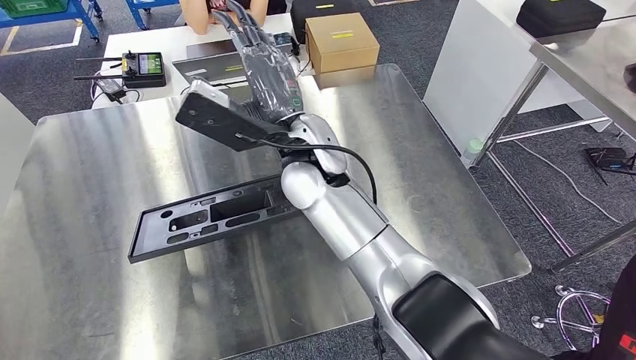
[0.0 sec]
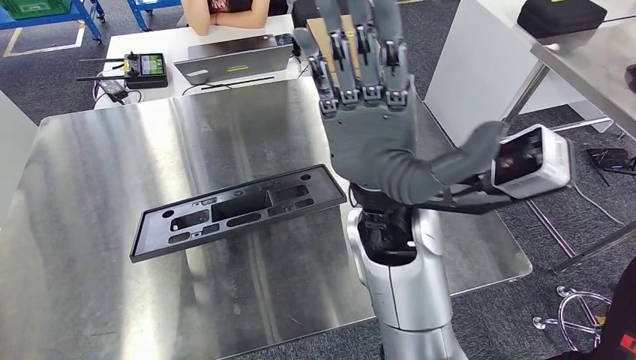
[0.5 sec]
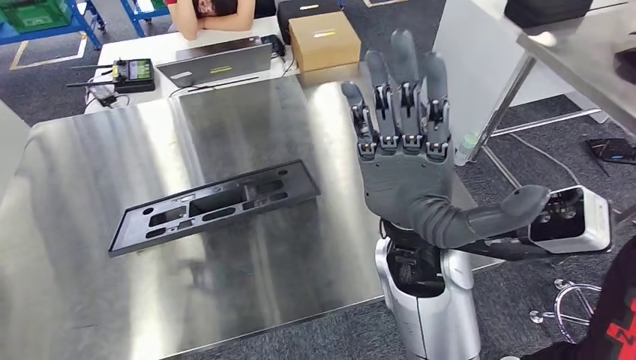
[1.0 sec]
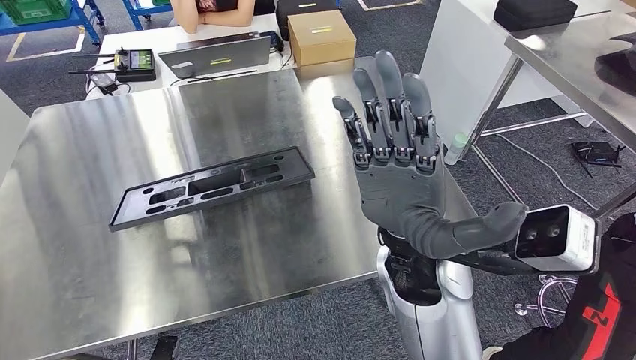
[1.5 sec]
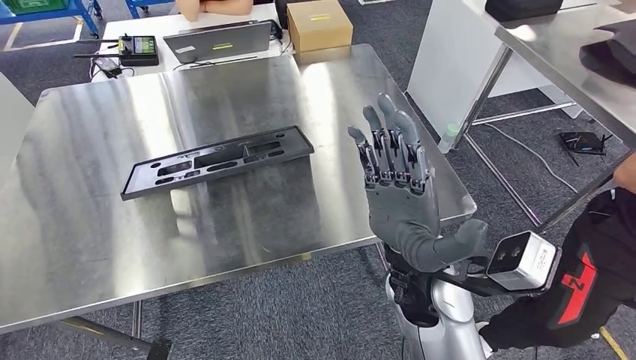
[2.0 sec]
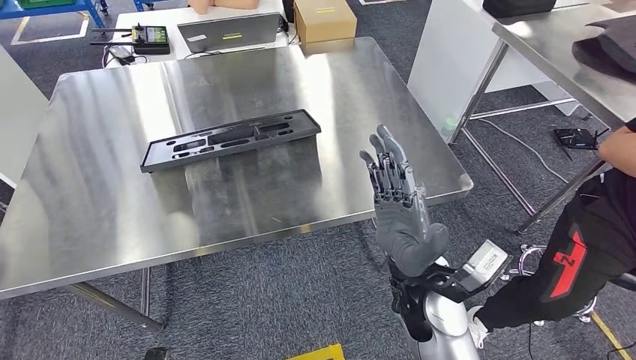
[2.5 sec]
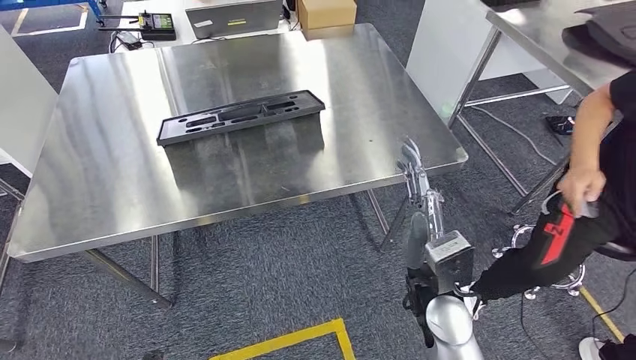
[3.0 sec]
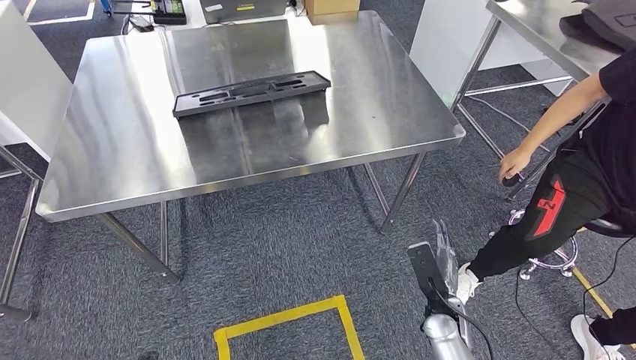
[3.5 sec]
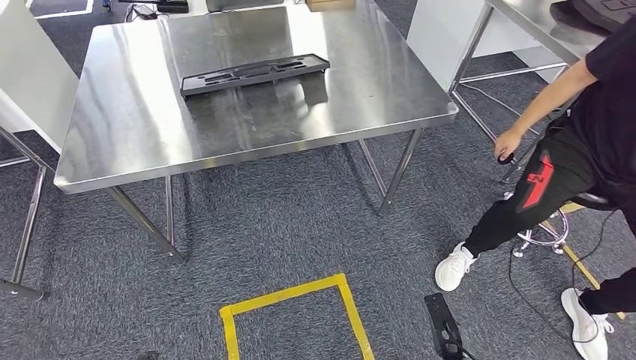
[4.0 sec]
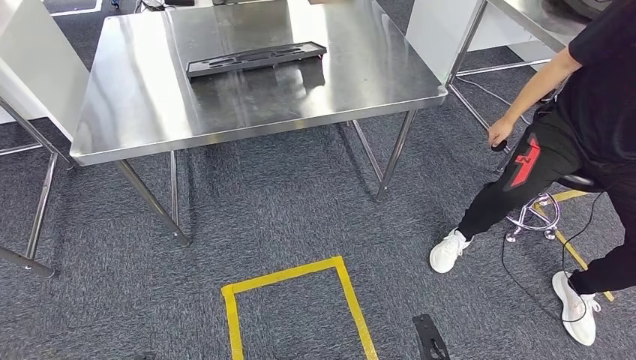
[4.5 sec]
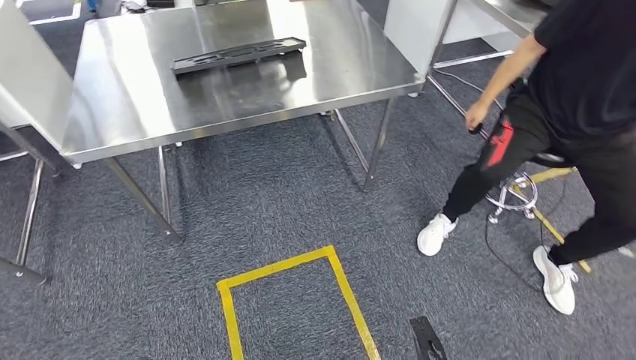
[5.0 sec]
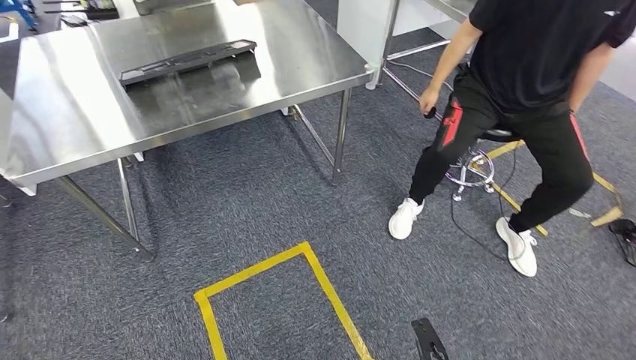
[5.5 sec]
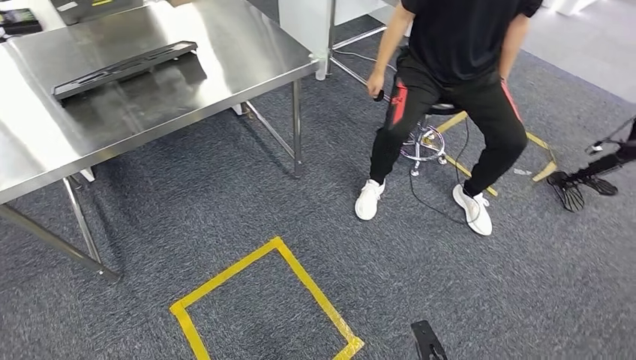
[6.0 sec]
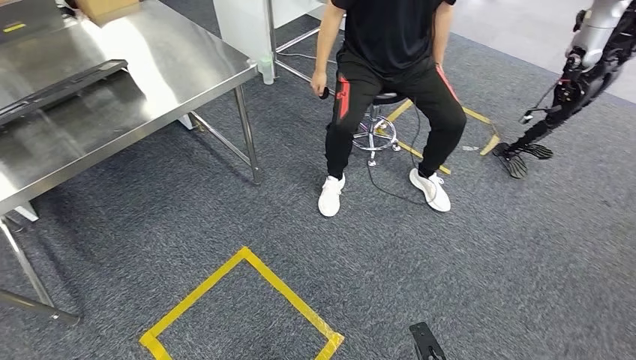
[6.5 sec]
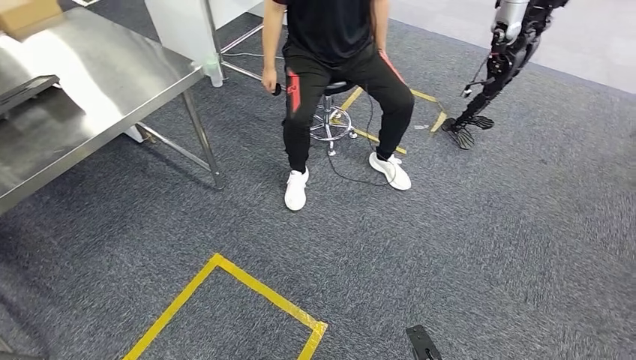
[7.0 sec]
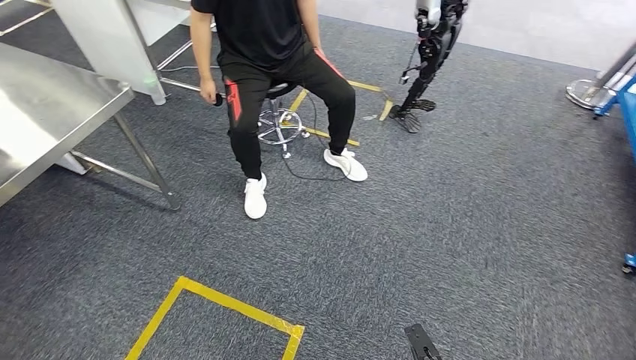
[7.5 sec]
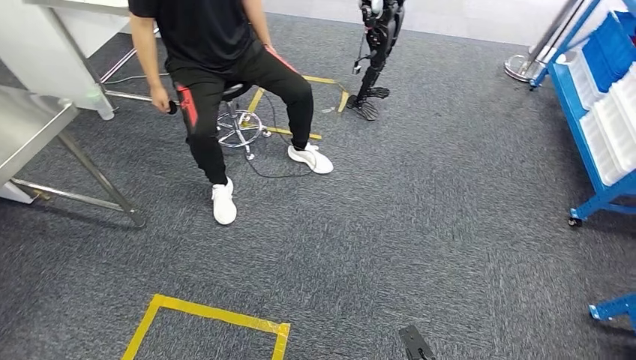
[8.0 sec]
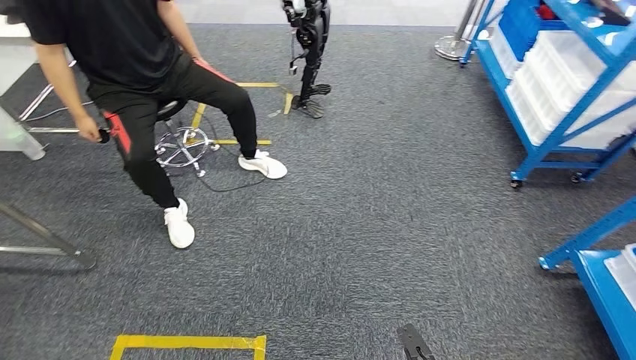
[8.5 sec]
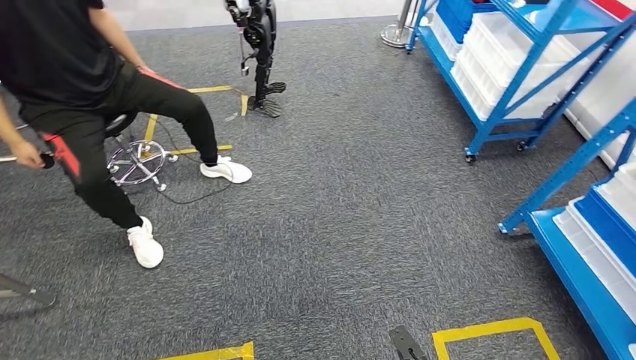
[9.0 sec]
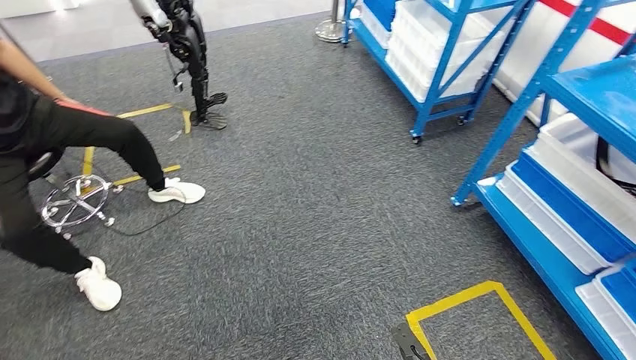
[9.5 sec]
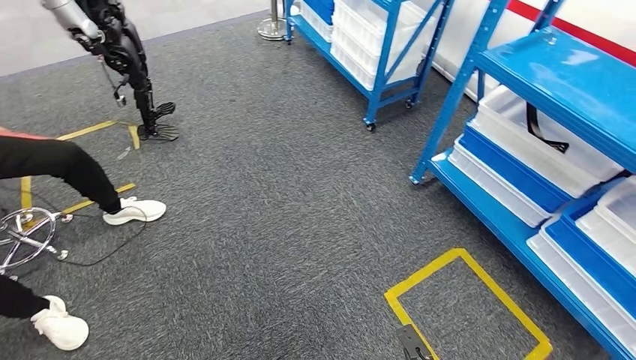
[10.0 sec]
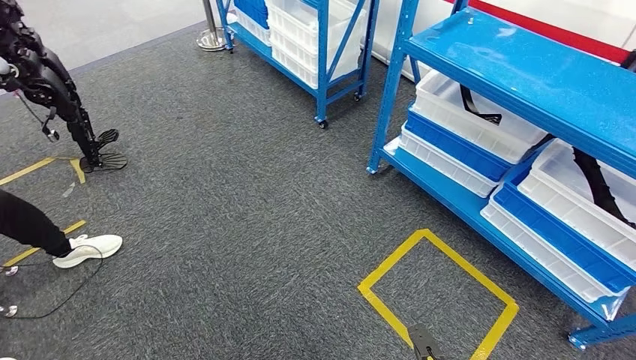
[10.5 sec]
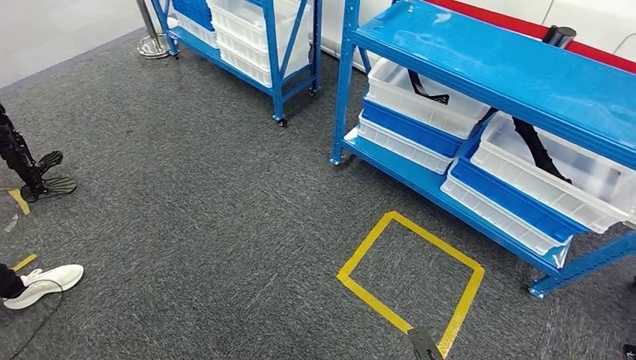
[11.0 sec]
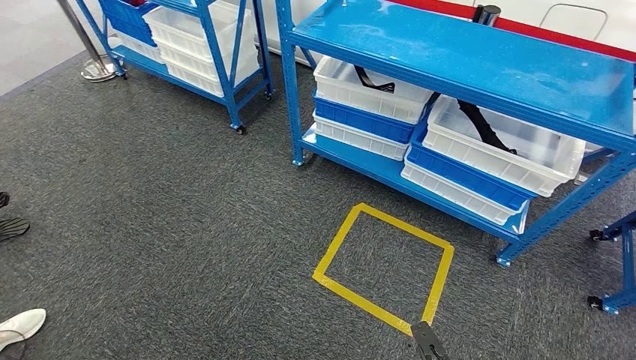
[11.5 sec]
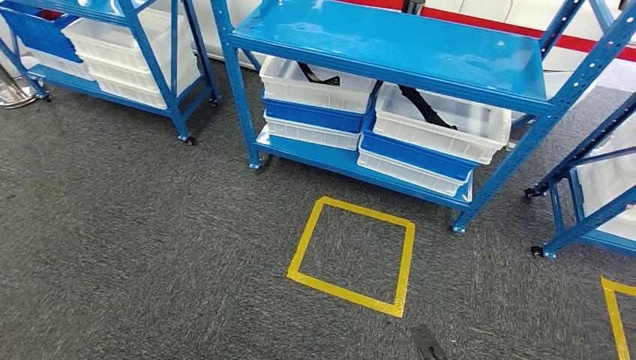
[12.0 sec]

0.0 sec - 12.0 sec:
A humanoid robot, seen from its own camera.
Step, 0.0 sec - 6.5 sec: Insert the large material into the corresponding slot on the workbench.

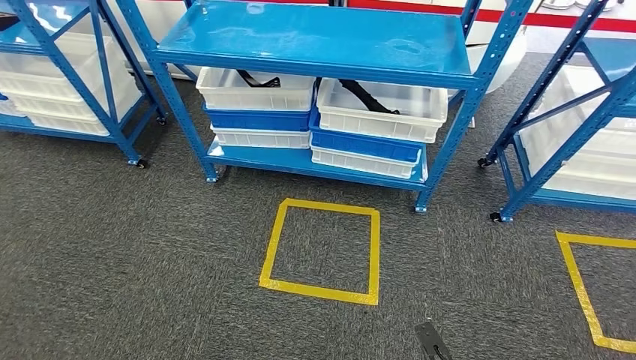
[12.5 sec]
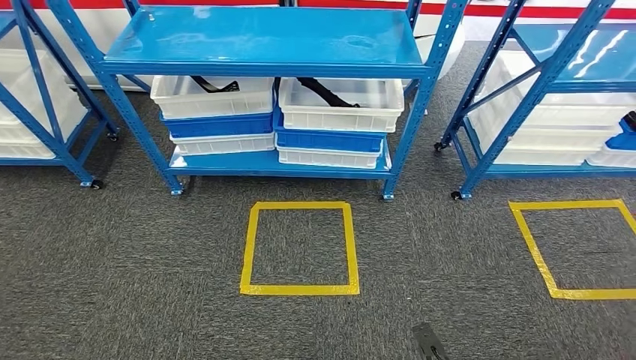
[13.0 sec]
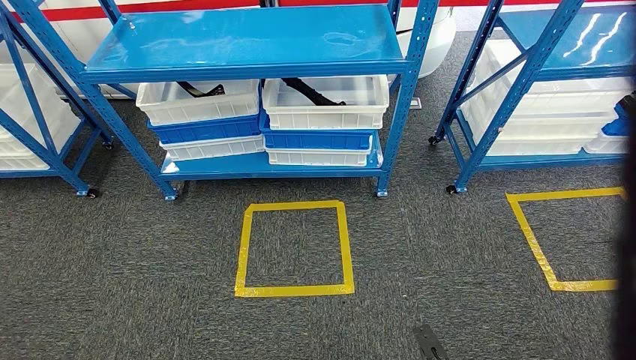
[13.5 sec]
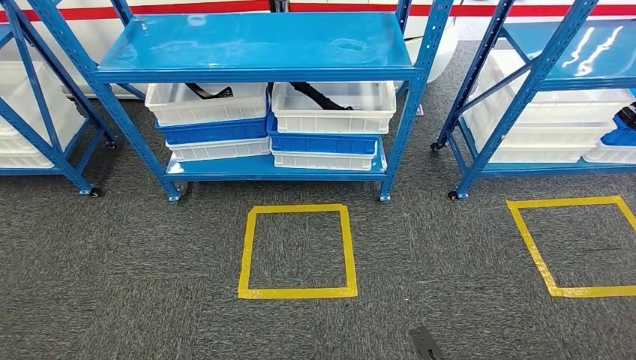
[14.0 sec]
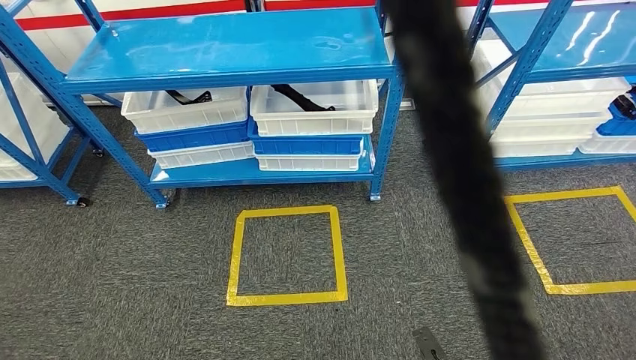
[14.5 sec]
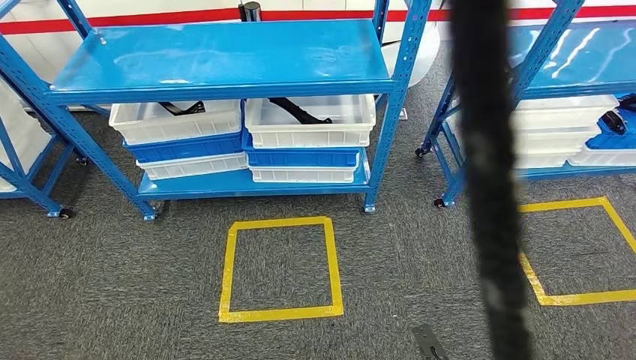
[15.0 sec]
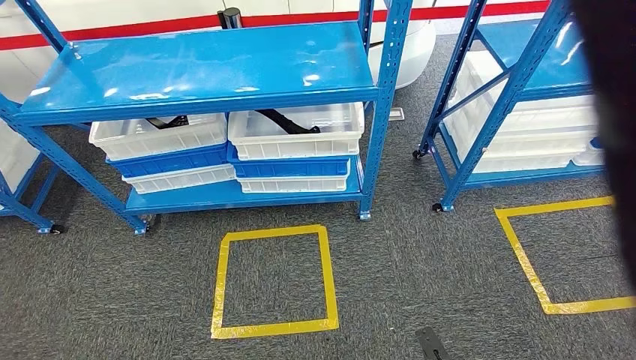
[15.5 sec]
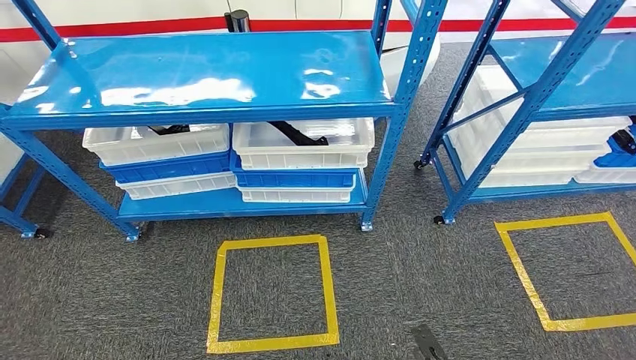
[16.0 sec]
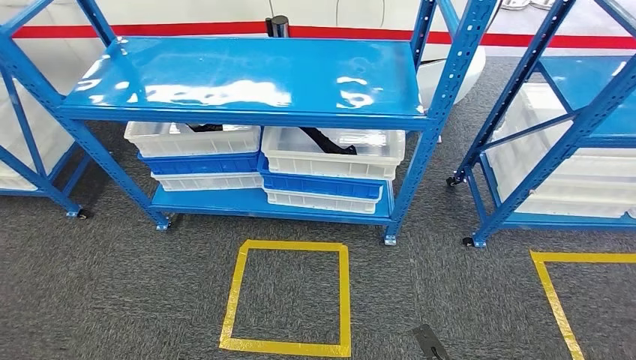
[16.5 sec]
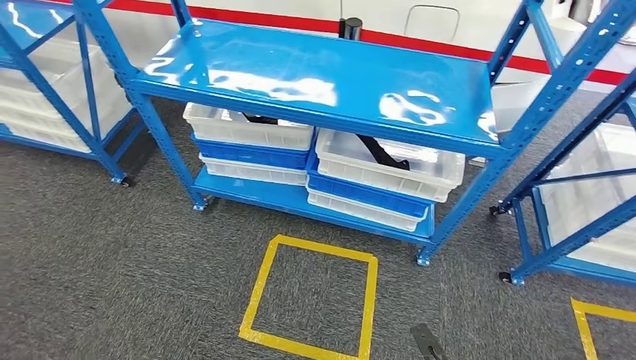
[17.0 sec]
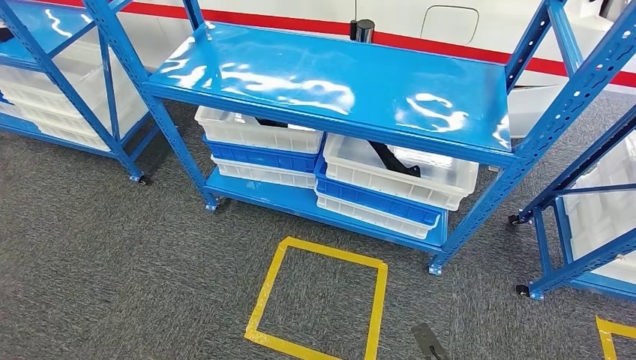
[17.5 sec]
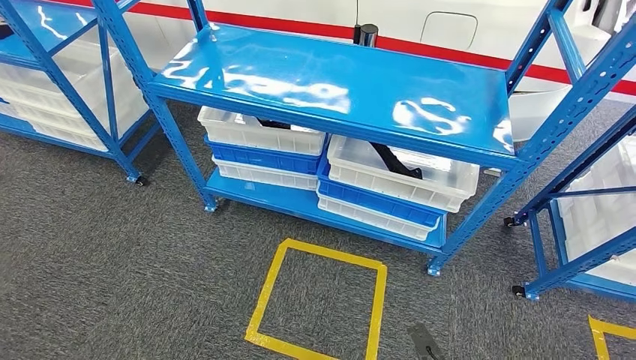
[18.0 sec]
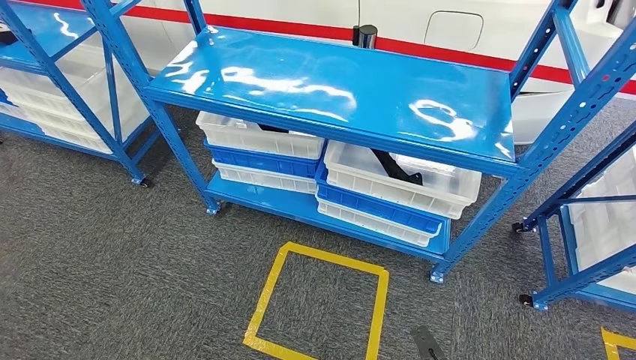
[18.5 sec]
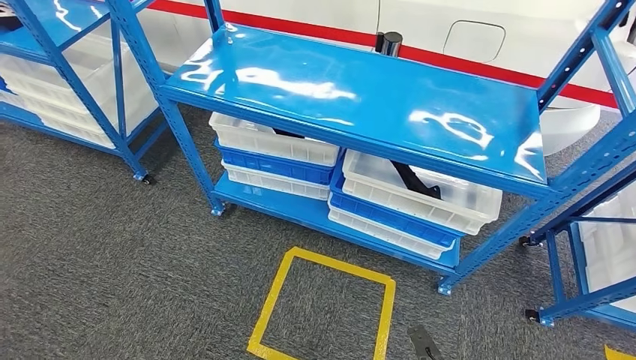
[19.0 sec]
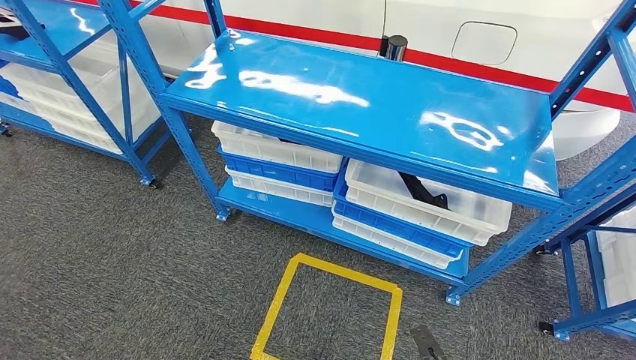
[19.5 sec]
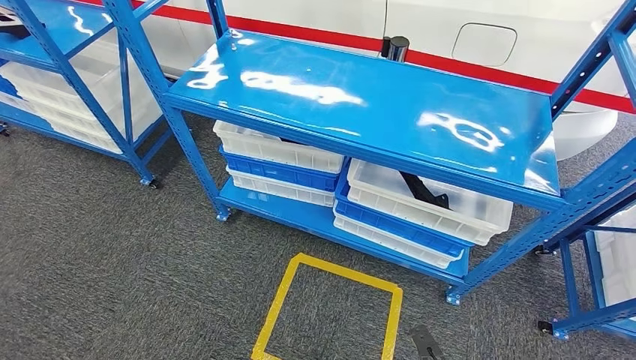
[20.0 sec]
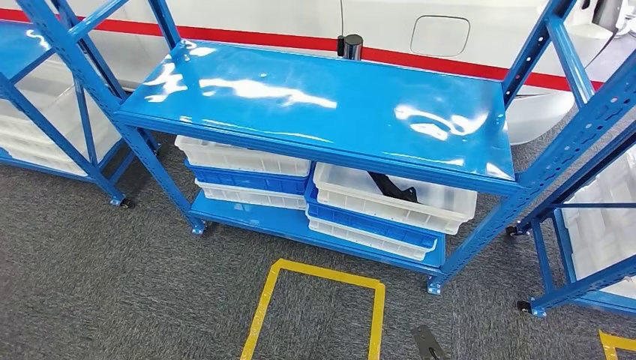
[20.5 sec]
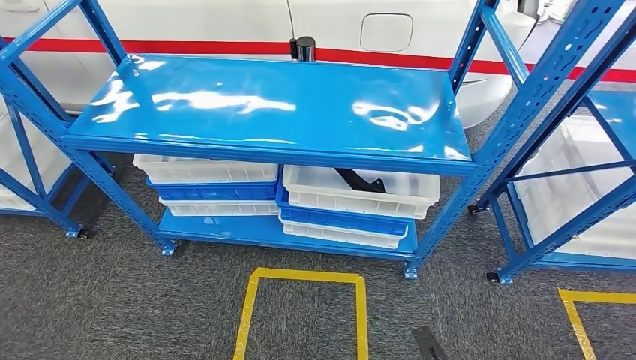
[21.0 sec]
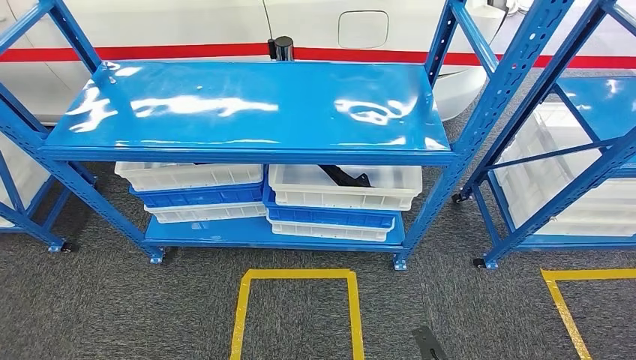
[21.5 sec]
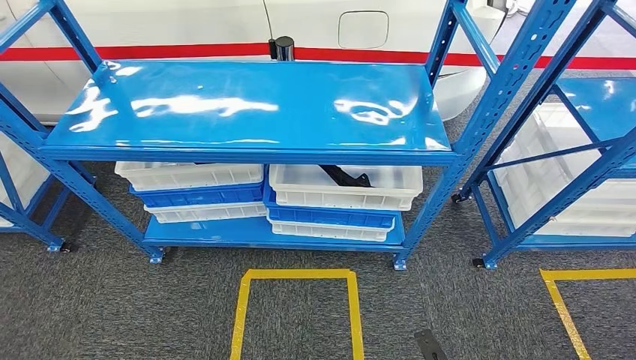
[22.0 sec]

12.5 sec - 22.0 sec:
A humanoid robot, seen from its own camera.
Step, 12.5 sec - 22.0 sec: Move to the initial position of the shelf.
